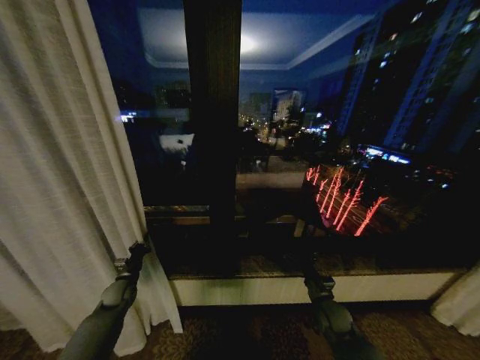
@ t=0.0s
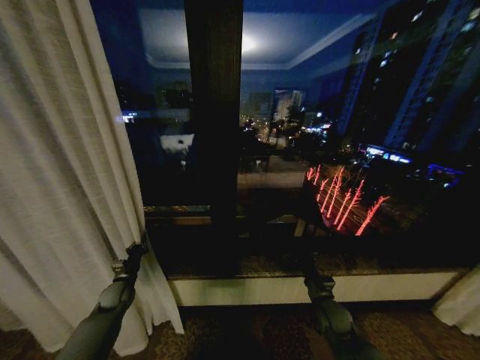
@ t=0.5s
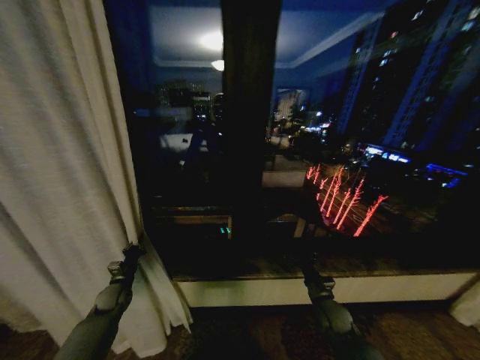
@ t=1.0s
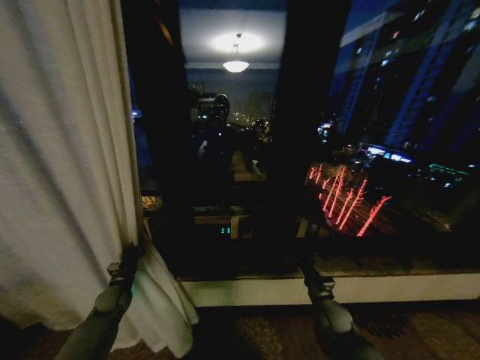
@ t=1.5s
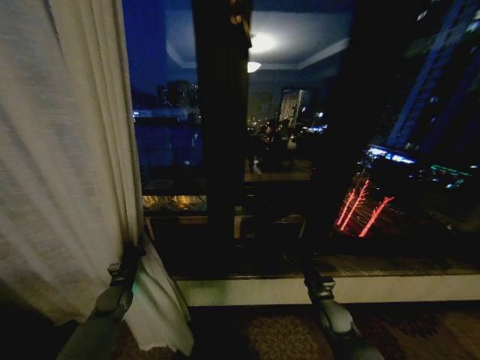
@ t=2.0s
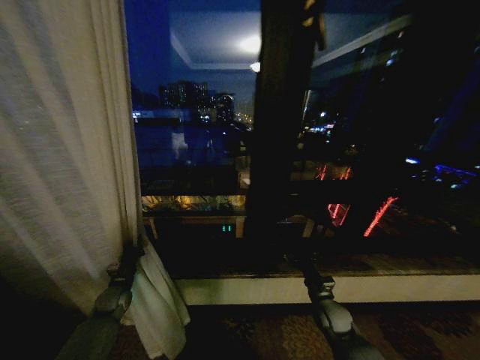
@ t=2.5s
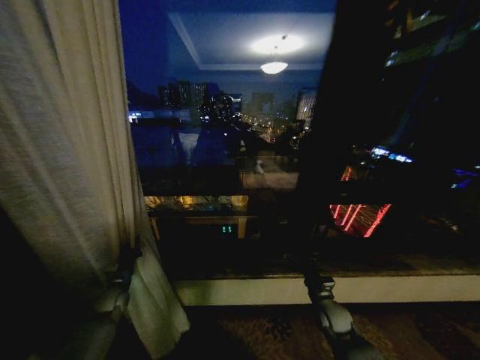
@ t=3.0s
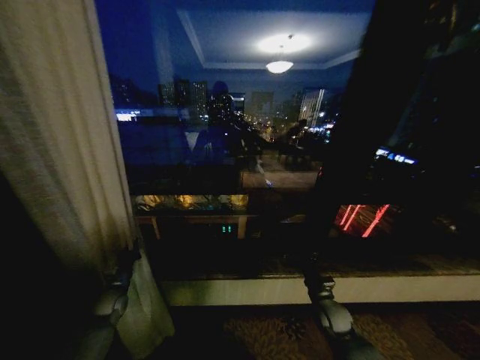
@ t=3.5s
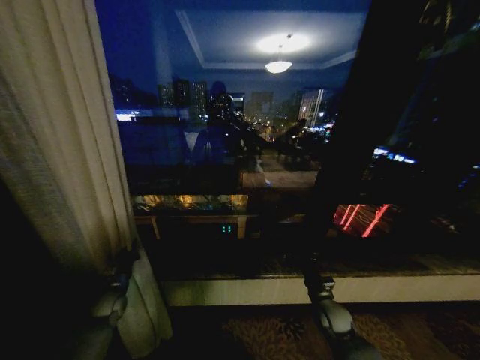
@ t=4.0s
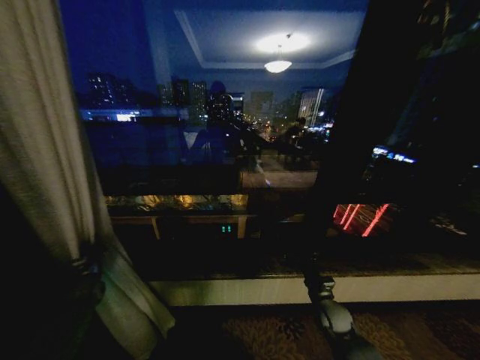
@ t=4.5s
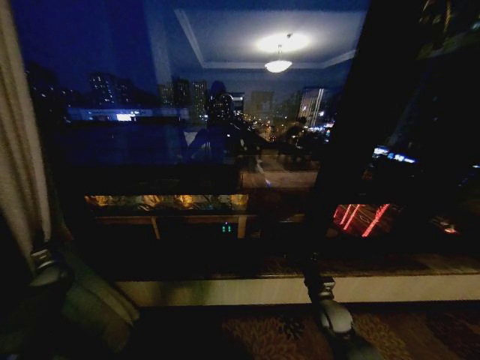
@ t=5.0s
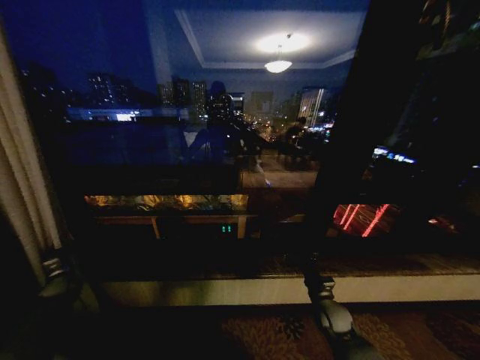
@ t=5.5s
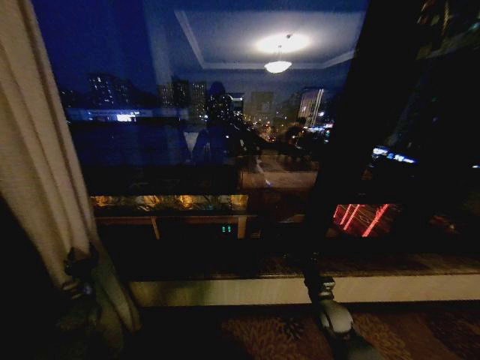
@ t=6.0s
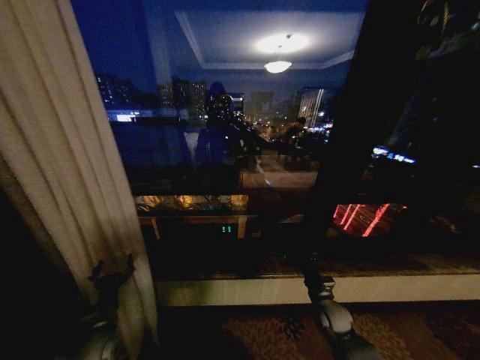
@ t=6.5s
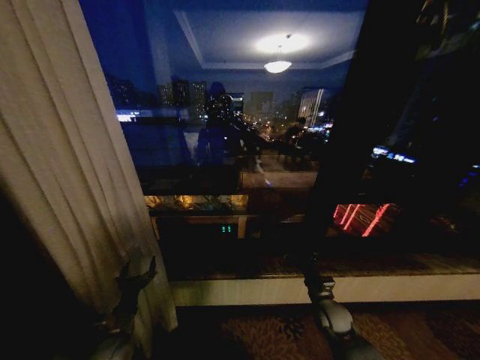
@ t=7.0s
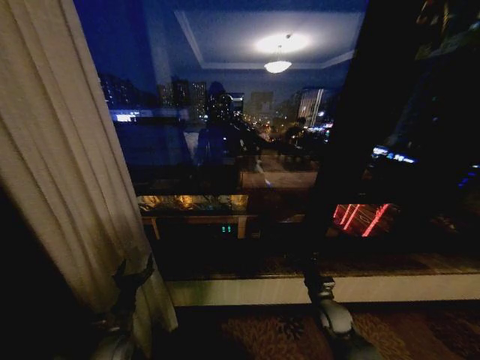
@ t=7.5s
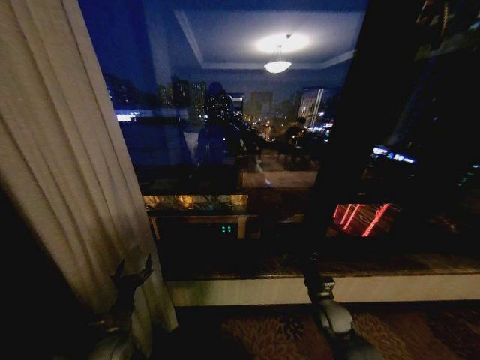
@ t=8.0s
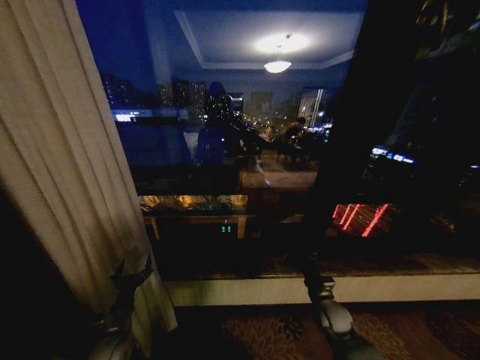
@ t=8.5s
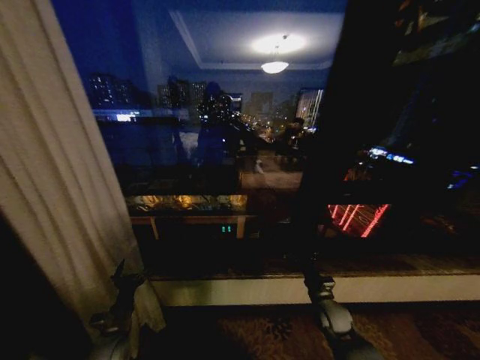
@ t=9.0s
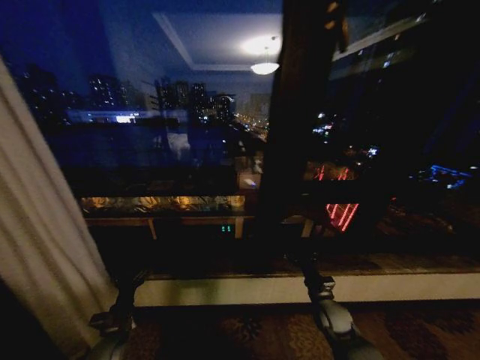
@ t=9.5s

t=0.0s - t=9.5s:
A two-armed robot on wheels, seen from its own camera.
Task of the whole recording: Open the curtains by pulling them apart, changing their state from closed to fully open.
t=4.0s - t=5.5s: The left gripper moves to the left, approximately 15 cm.
t=5.5s - t=7.5s: The left gripper shifts some 30 cm to the right and backward, and opens up.

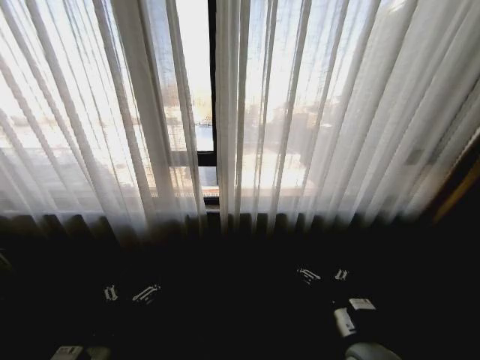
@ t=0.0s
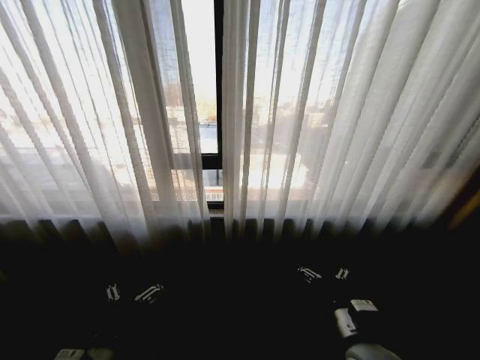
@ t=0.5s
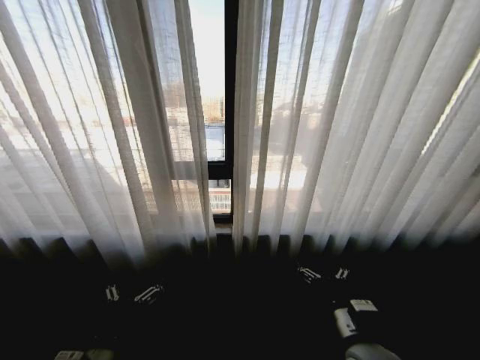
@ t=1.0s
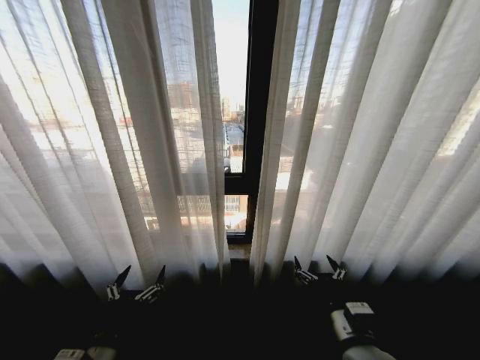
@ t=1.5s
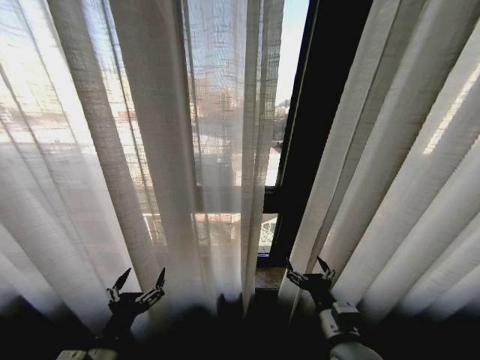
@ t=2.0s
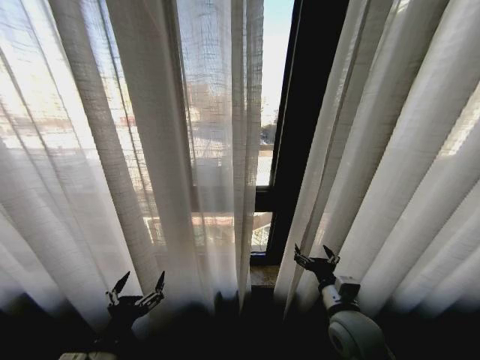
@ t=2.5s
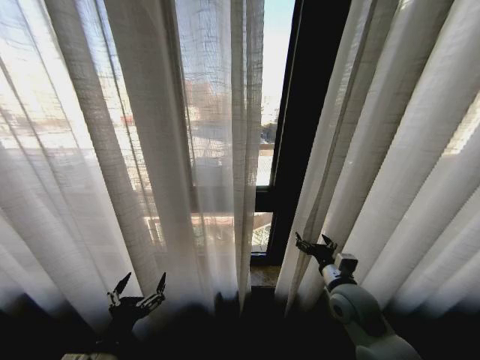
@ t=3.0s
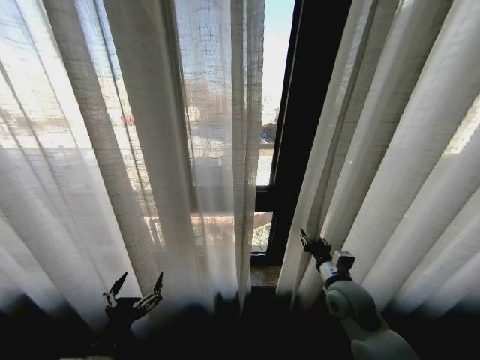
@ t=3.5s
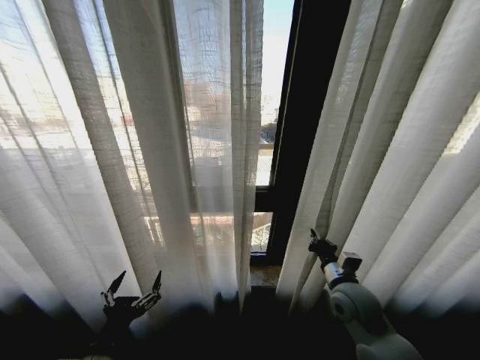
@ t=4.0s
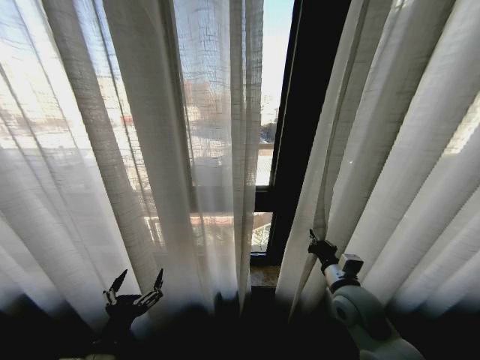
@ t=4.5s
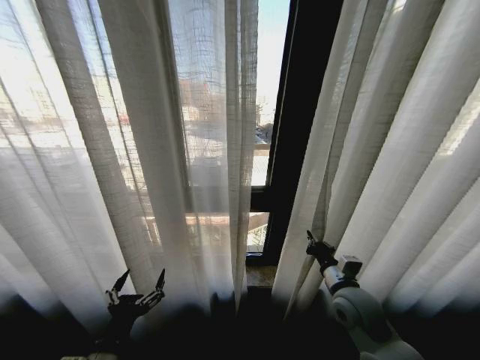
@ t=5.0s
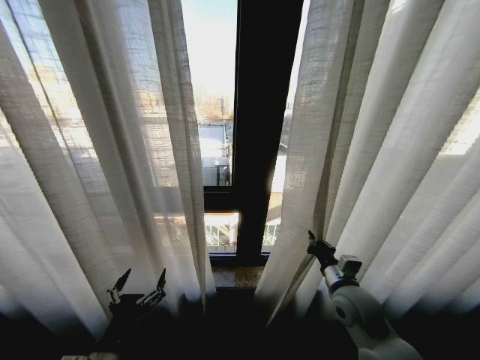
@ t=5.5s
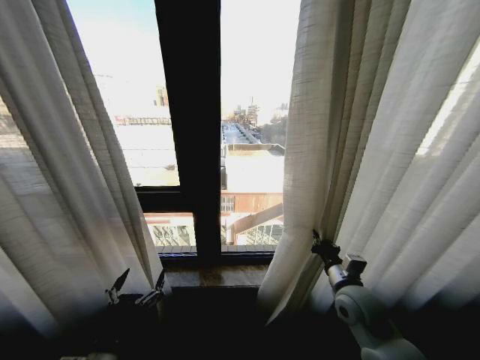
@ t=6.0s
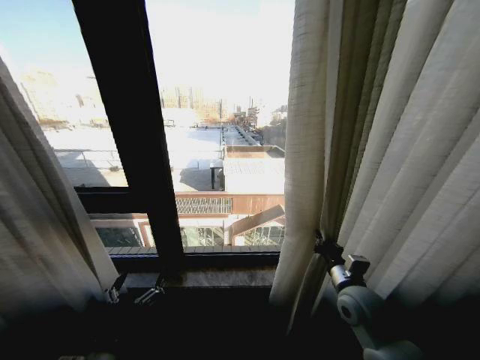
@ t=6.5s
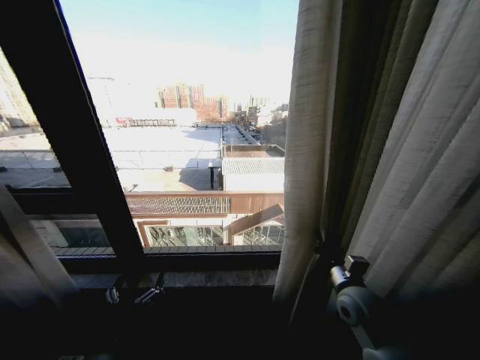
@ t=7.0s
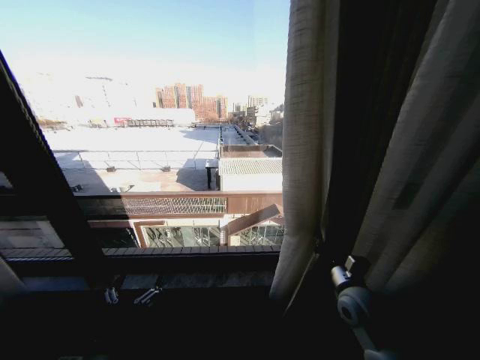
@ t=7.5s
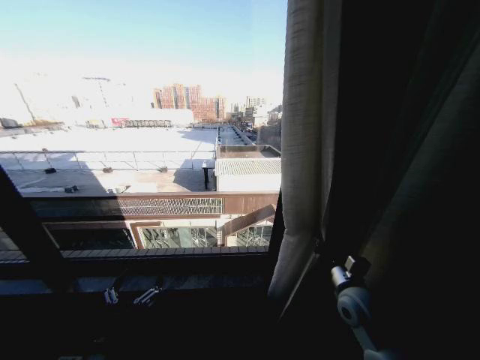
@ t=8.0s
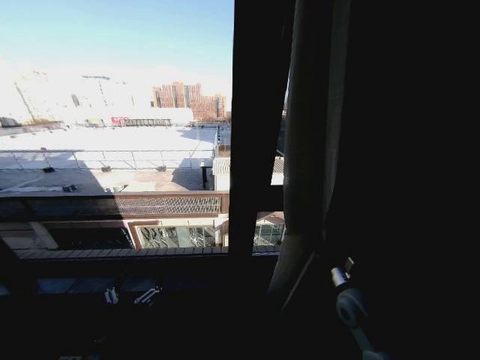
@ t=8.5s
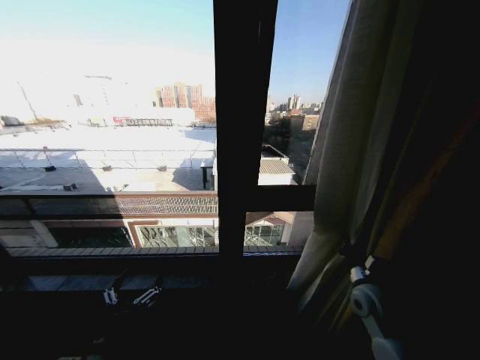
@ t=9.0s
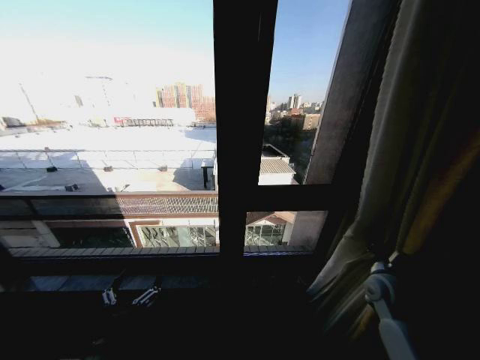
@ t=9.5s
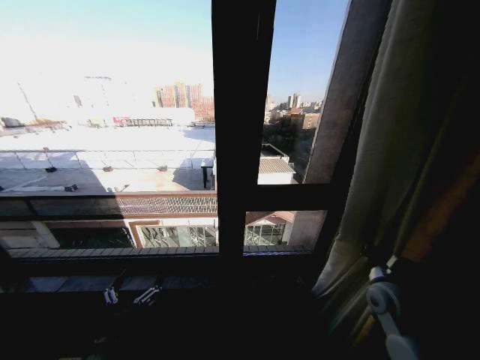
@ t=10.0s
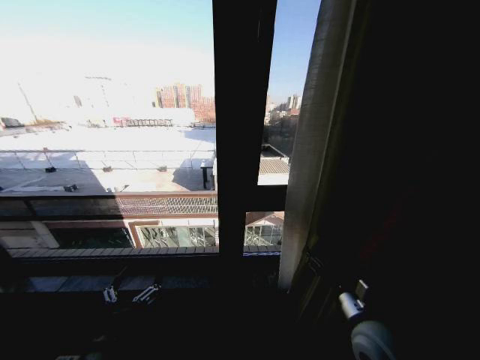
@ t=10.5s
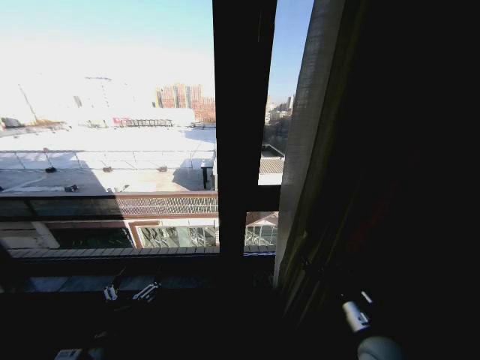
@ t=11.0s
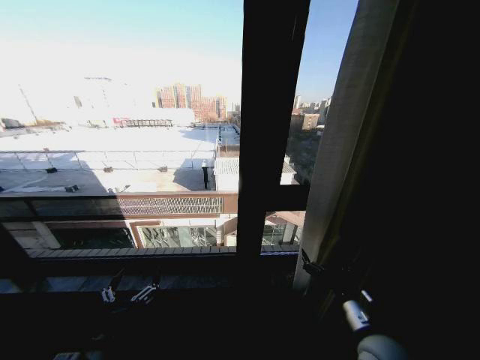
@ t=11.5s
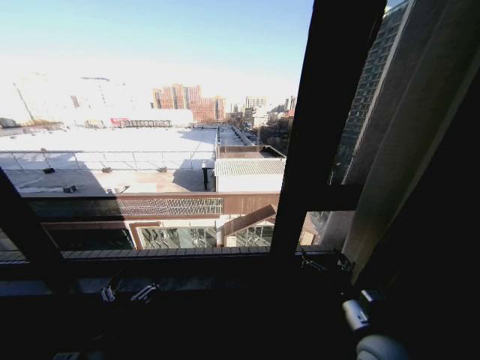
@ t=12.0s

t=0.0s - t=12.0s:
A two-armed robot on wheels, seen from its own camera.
Task of the whole recording: Open the curtains by pulling them apart, changing their state from closed to fully open.
t=2.0s - t=4.0s: The right gripper goes some 15 cm forward and to the right, and closes.
t=8.0s - t=10.0s: The right gripper moves to the right, some 10 cm.
t=10.0s - t=12.0s: The right gripper goes approximately 20 cm to the left and backward, and opens.

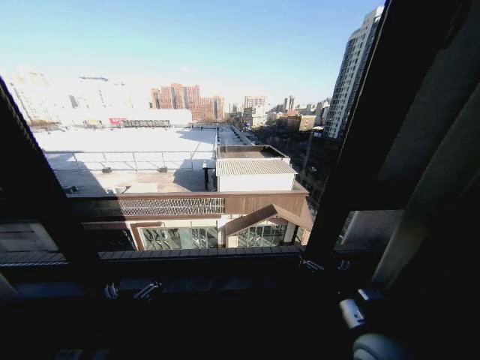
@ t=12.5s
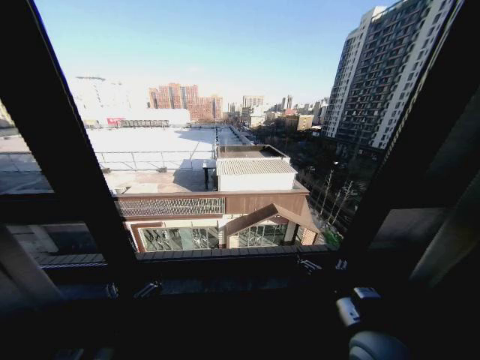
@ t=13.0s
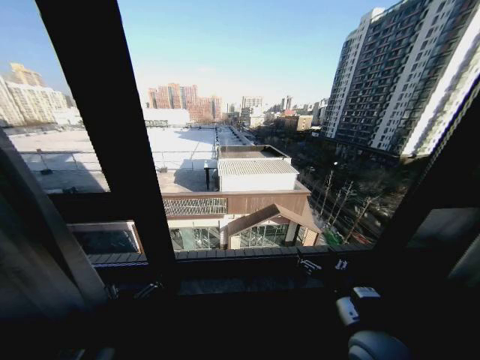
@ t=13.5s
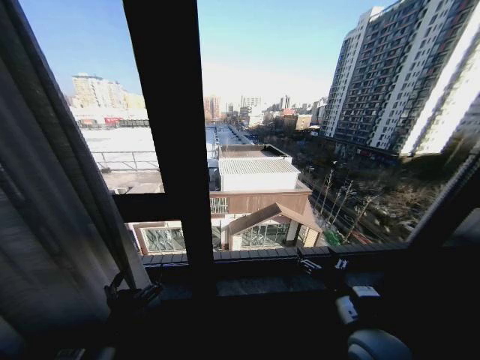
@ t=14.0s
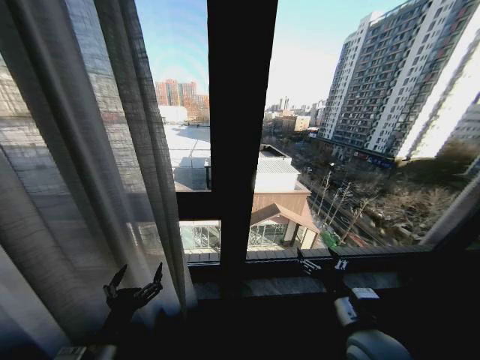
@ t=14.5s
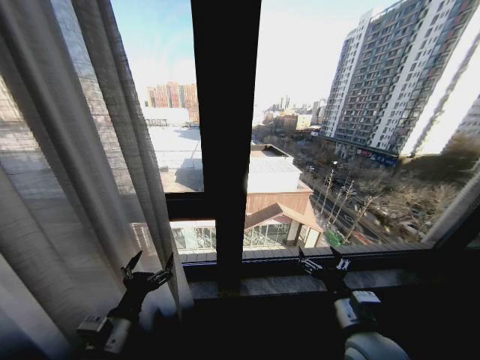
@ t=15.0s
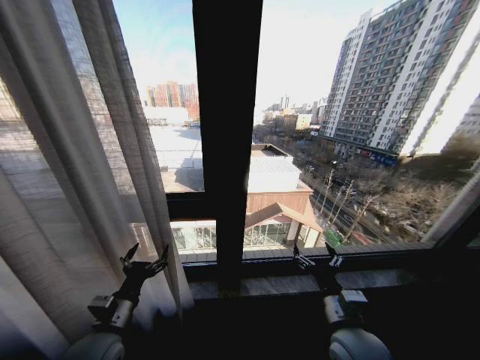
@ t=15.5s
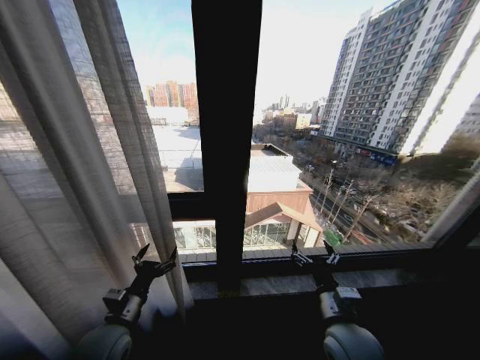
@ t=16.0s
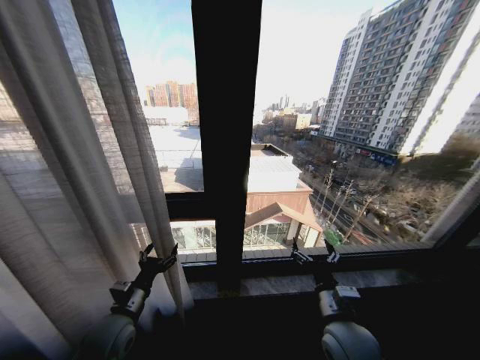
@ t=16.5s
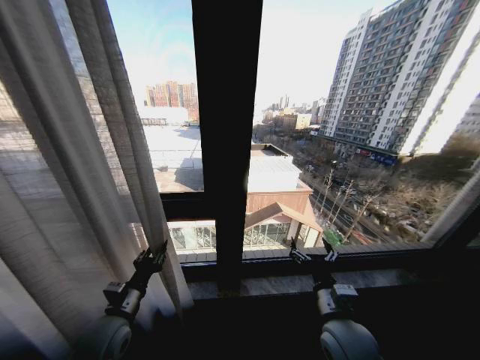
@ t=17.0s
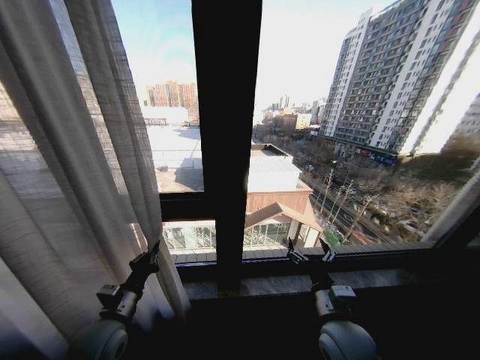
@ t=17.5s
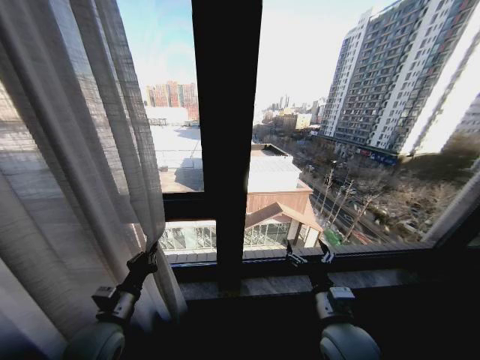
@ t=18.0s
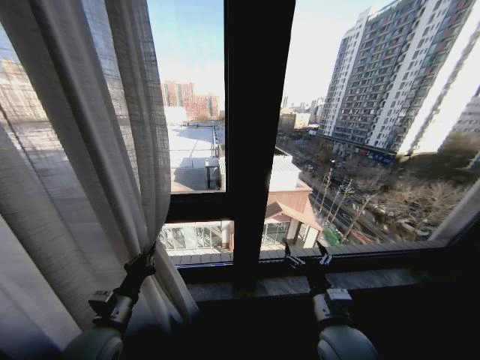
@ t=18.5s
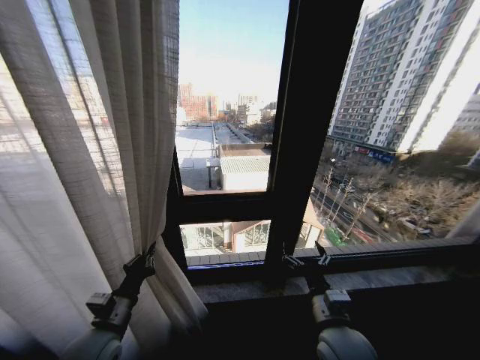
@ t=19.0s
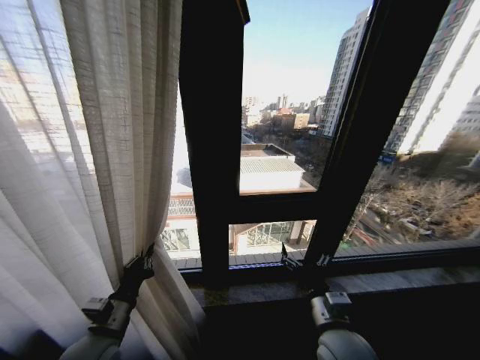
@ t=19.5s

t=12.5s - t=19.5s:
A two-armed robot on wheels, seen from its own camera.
Task of the whole recording: Open the curtains by pulling them apart, changing their state from closed to fully open.
t=14.5s - t=16.0s: The left gripper travels forward by approximately 10 cm.
t=16.0s - t=17.5s: The left gripper closes.
